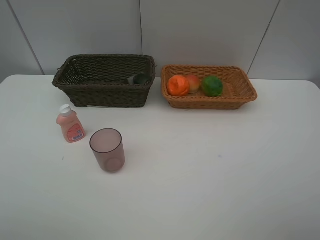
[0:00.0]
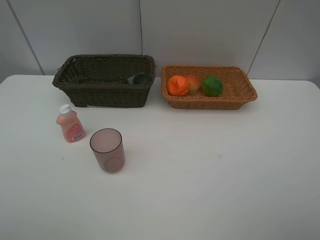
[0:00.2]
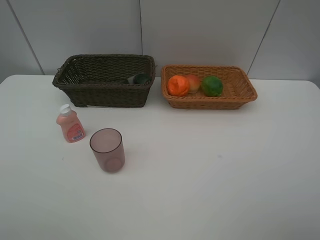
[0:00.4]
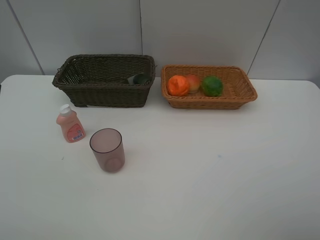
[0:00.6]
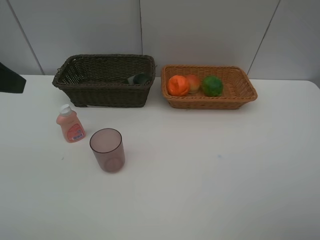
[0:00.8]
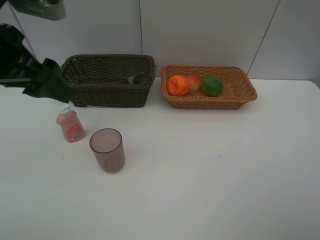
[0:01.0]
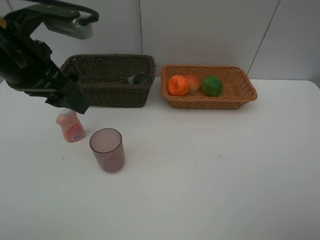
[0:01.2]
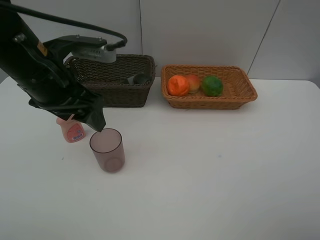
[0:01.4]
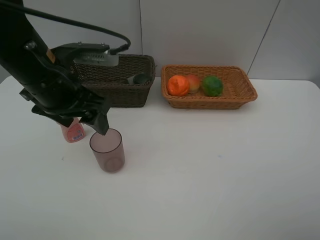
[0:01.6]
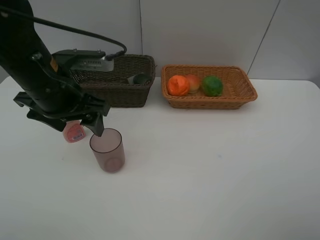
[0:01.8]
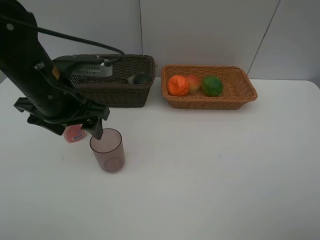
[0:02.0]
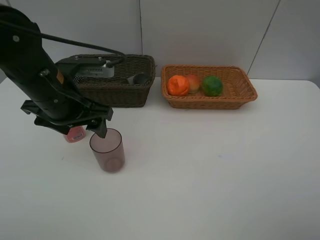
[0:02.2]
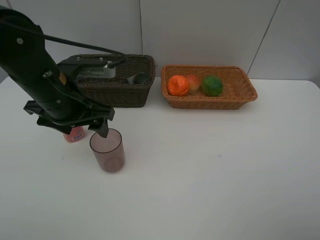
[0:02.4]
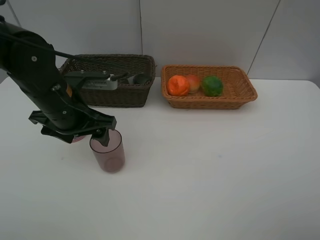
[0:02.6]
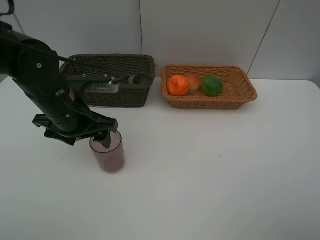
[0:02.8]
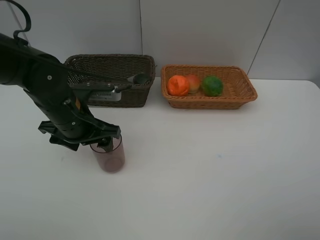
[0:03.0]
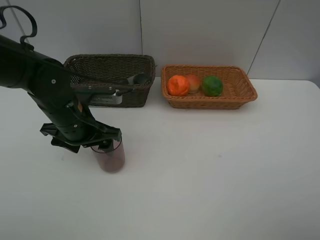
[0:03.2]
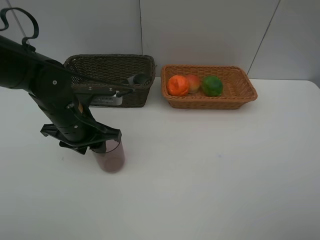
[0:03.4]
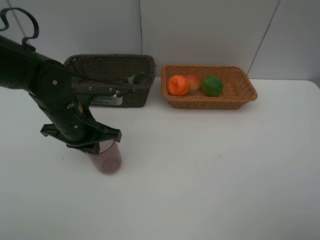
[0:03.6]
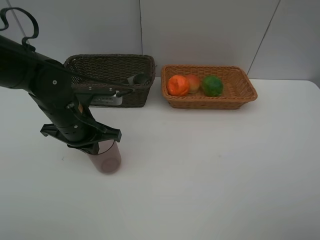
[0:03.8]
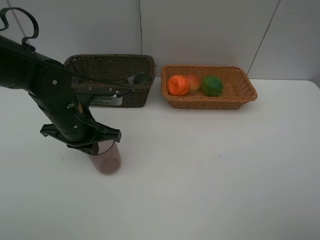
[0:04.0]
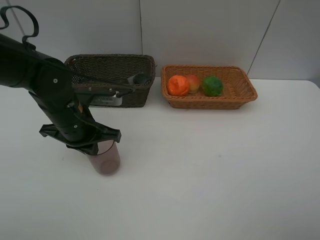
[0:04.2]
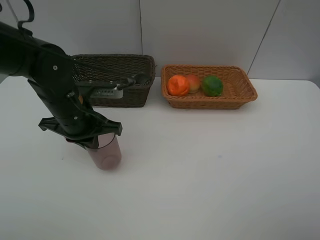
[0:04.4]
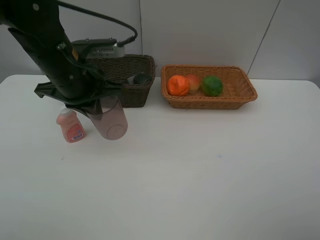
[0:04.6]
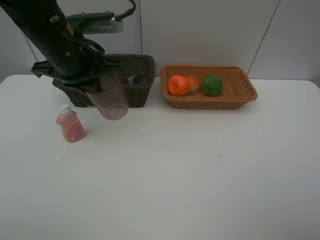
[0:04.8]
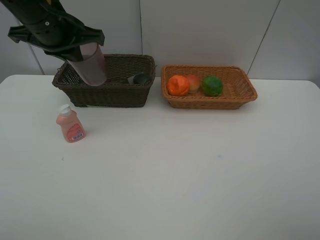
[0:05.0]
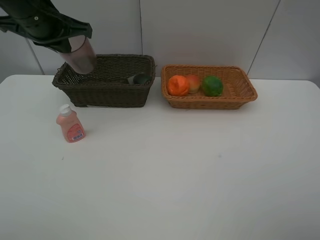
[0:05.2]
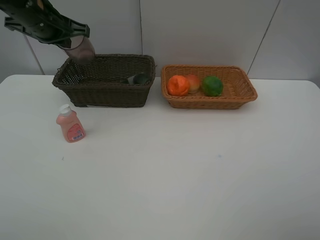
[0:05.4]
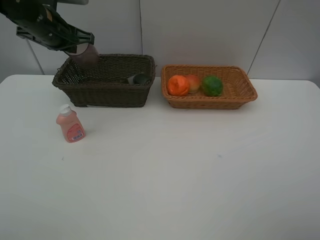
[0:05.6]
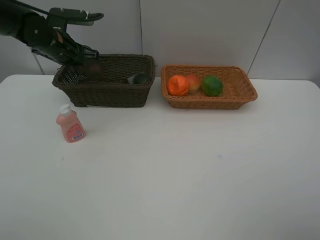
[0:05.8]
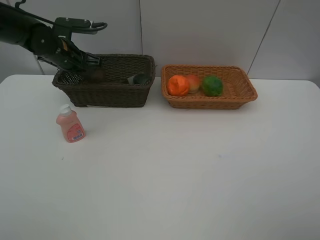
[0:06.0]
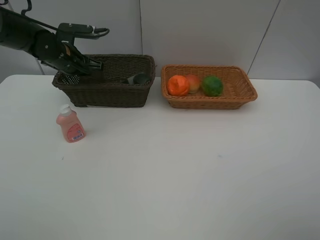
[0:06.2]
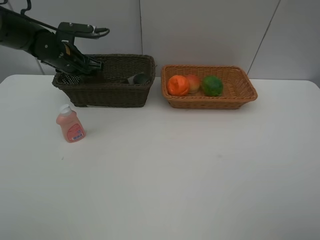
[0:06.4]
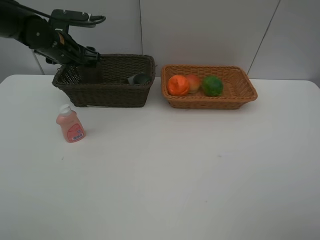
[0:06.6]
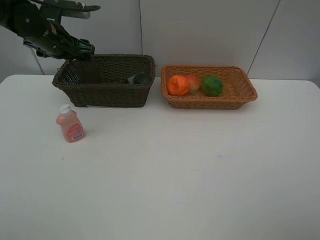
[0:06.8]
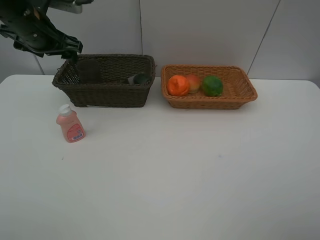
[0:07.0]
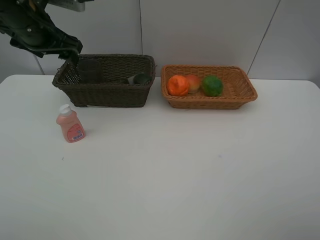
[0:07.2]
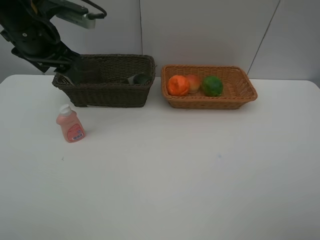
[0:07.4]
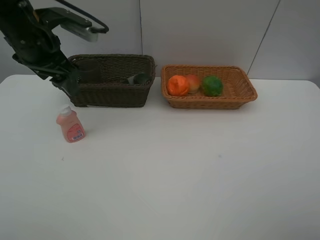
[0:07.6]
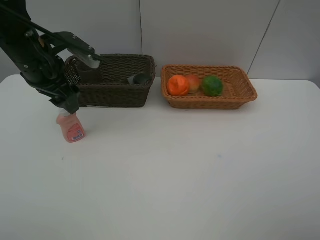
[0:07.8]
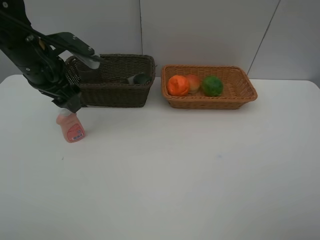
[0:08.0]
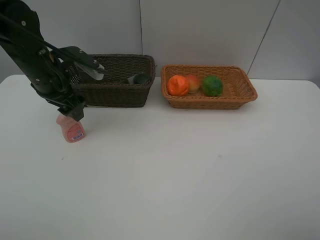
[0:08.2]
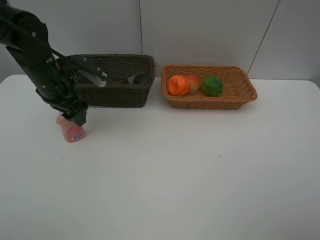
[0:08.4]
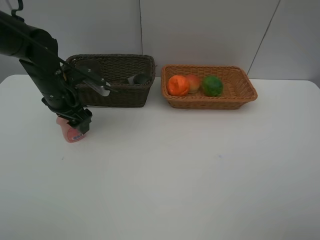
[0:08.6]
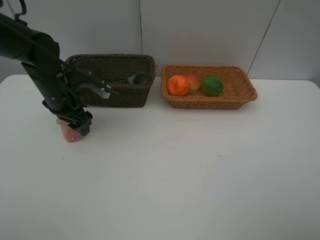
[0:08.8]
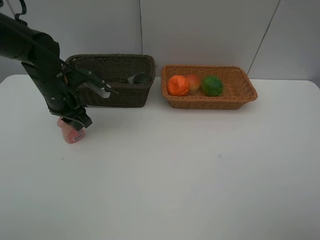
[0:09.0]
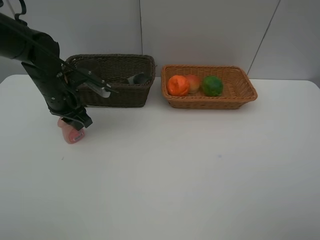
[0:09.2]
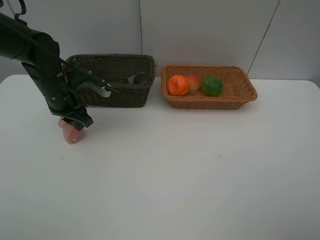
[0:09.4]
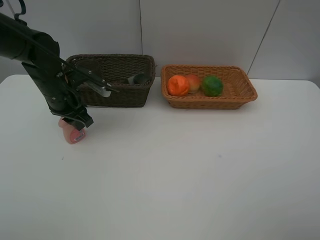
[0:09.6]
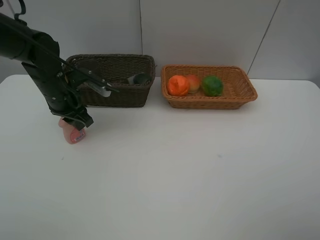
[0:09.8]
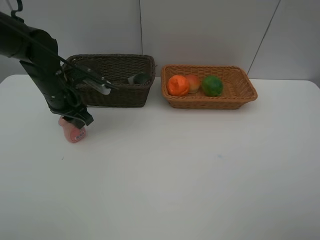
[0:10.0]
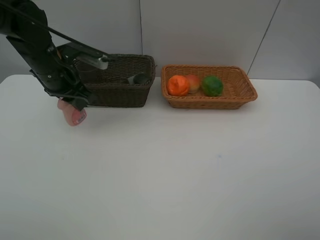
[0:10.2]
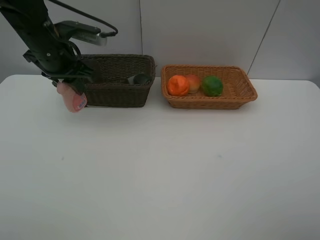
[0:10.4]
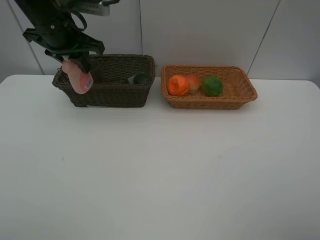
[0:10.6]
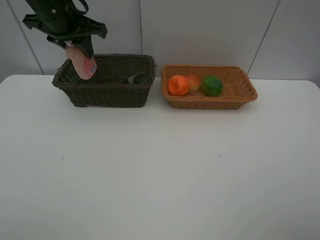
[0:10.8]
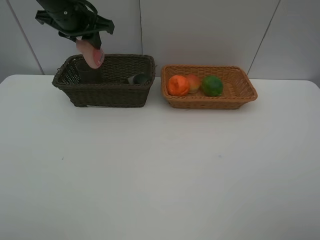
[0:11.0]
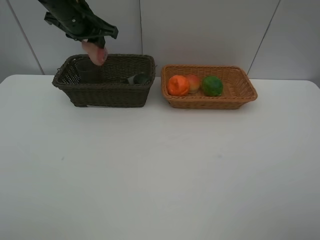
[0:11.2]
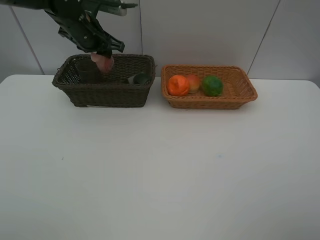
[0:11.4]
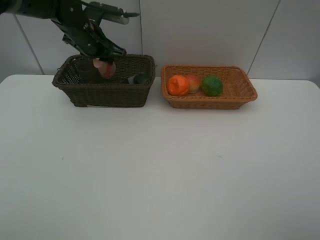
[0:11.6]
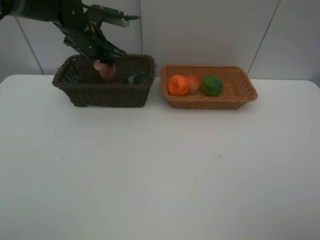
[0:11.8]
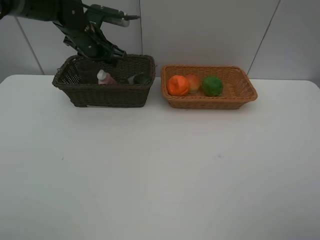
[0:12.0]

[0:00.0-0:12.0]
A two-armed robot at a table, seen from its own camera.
Task of the whole recording: place multiple objects separately in different baskets.
0:00.0 to 0:01.6: The left gripper shifts about 30 cm forward and to the right.
0:01.6 to 0:03.0: The left gripper is displaced downward by some 10 cm.
0:03.0 to 0:04.4: The left gripper closes up.
0:04.4 to 0:06.0: The left gripper goes approximately 20 cm forward and to the left.
0:06.0 to 0:07.6: The left gripper goes roughly 15 cm backward and upward, and opens up.
0:07.6 to 0:09.0: The left gripper is displaced downward by approximately 10 cm, and closes.
0:09.0 to 0:10.4: The left gripper moves upward, about 10 cm.
0:10.4 to 0:12.0: The left gripper travels forward by some 10 cm, and opens.

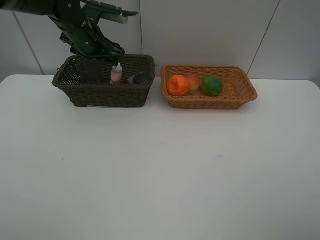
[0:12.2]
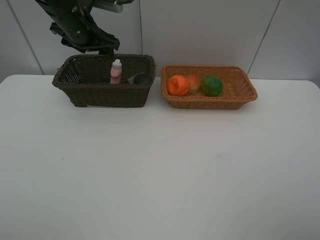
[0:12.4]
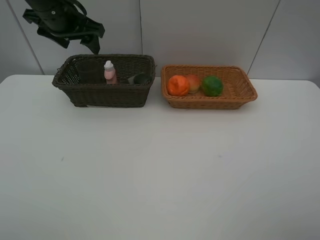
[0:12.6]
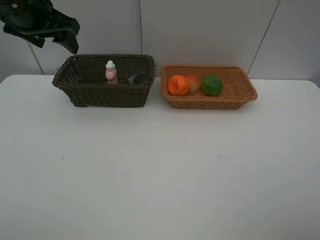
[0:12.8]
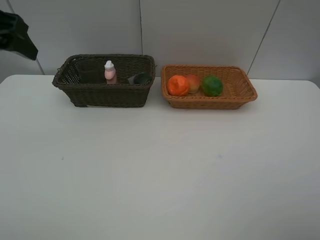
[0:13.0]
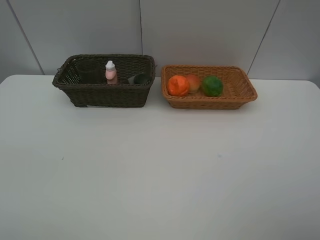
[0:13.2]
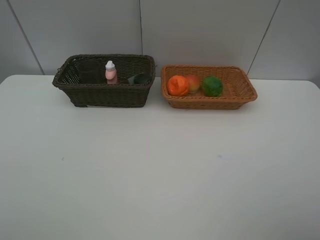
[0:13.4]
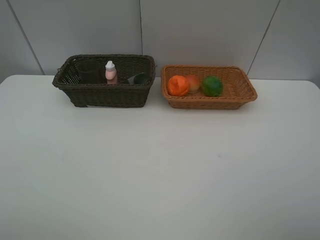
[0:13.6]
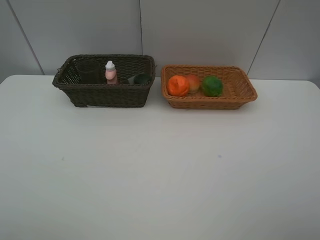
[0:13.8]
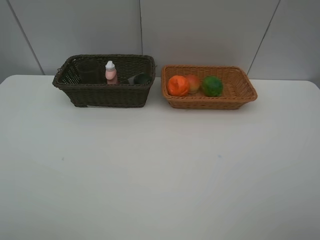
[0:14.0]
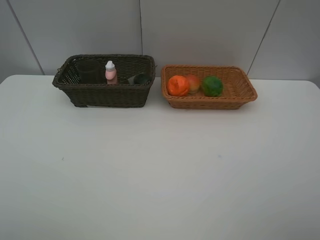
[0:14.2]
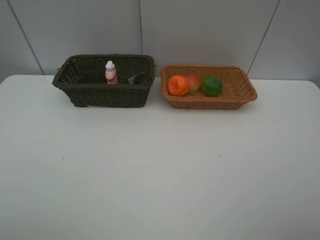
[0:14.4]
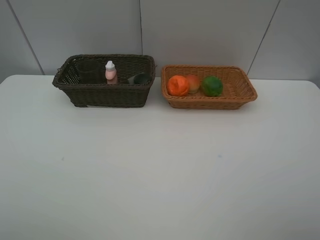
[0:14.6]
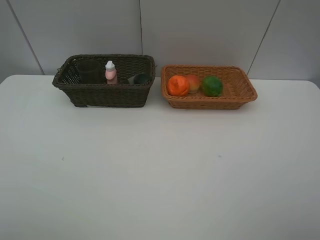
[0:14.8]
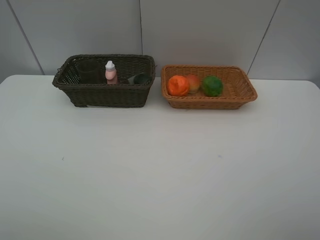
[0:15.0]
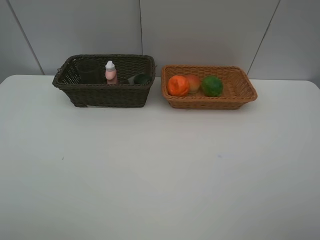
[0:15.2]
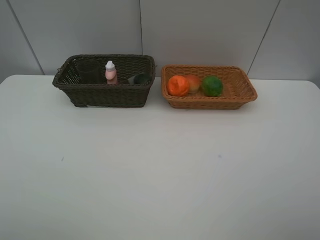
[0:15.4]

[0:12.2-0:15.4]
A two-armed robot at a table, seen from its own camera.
Task of the whole recording: place multiple objects separately in different baskets.
0:12.2 to 0:13.8: The left gripper heads backward, covering about 40 cm.
